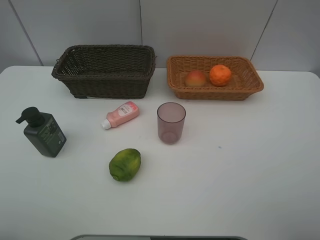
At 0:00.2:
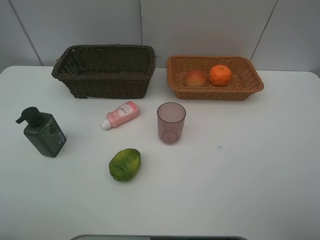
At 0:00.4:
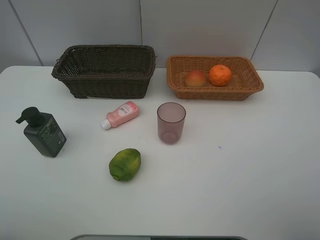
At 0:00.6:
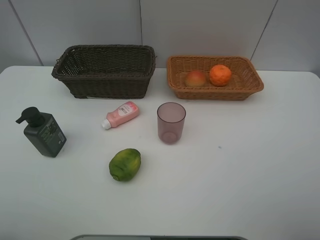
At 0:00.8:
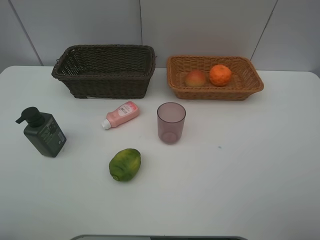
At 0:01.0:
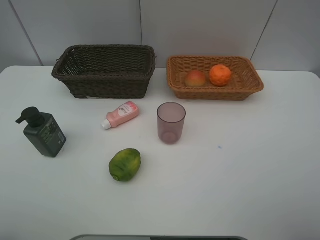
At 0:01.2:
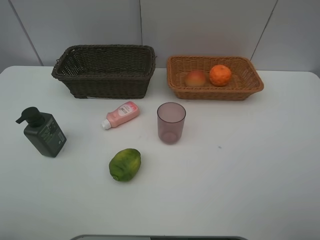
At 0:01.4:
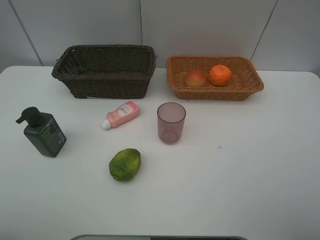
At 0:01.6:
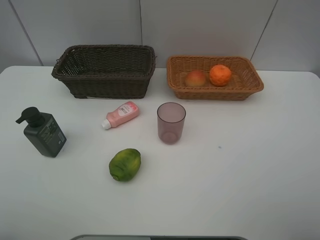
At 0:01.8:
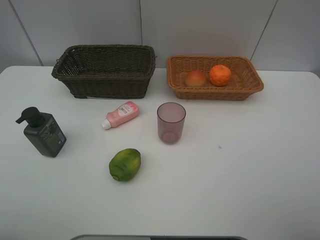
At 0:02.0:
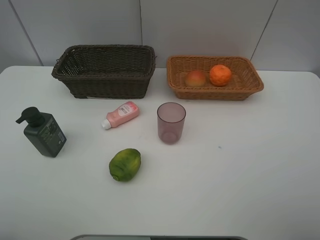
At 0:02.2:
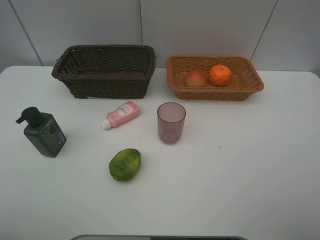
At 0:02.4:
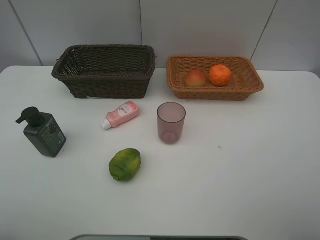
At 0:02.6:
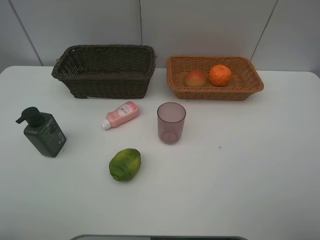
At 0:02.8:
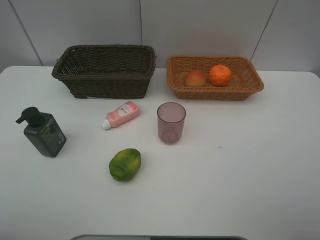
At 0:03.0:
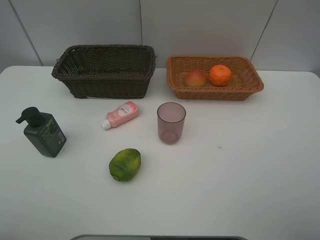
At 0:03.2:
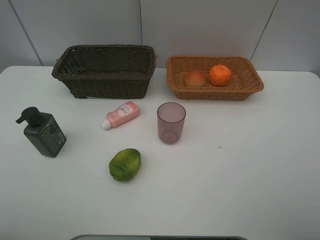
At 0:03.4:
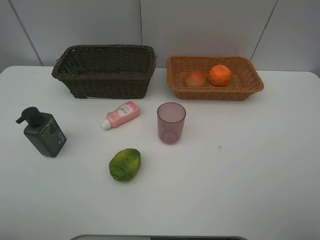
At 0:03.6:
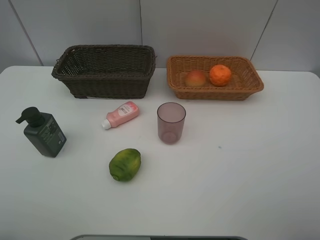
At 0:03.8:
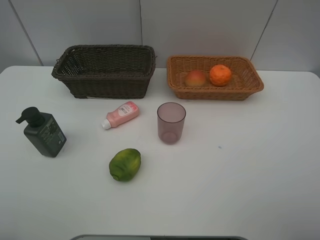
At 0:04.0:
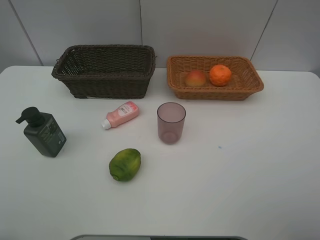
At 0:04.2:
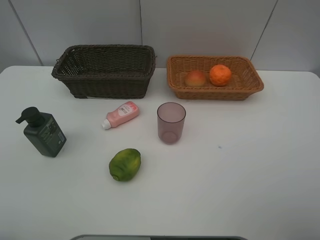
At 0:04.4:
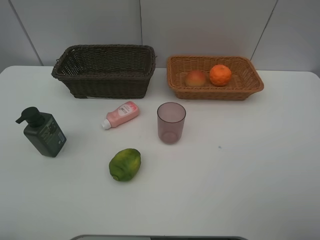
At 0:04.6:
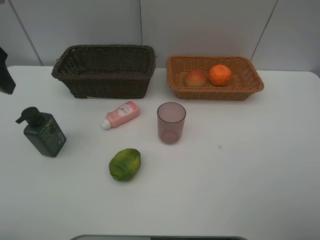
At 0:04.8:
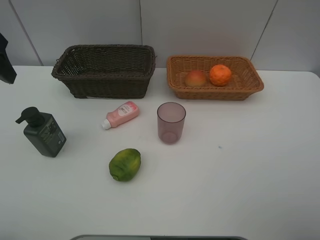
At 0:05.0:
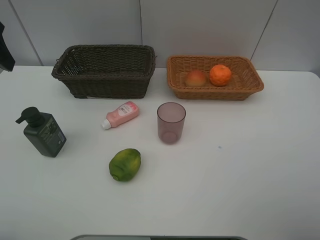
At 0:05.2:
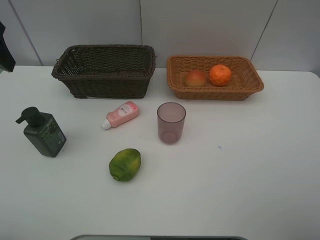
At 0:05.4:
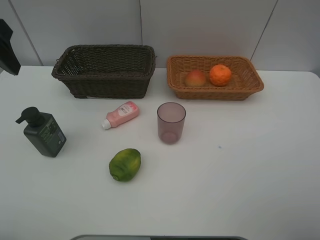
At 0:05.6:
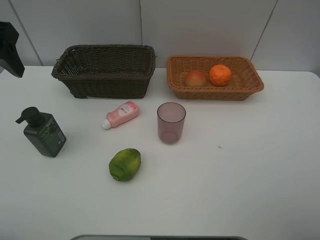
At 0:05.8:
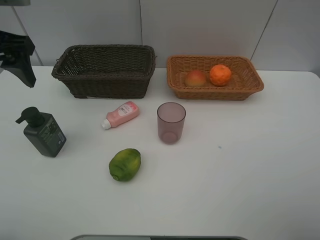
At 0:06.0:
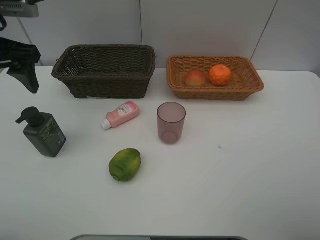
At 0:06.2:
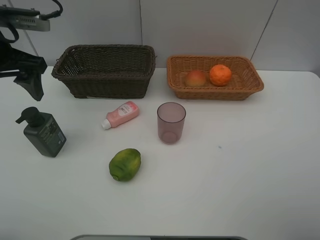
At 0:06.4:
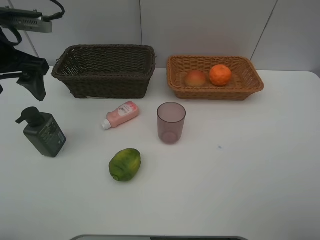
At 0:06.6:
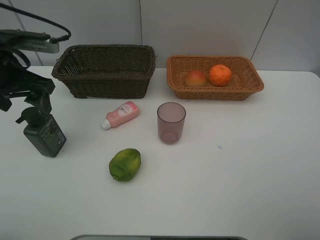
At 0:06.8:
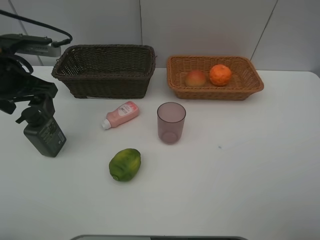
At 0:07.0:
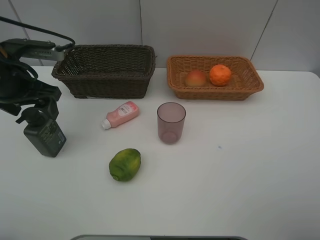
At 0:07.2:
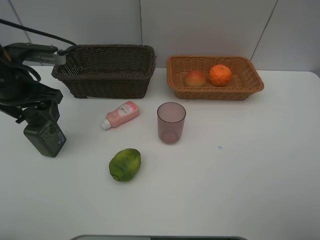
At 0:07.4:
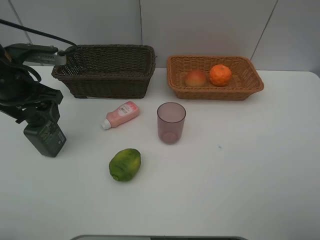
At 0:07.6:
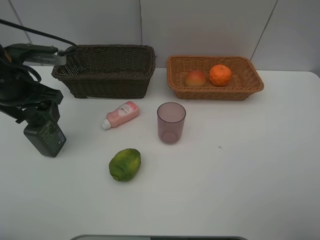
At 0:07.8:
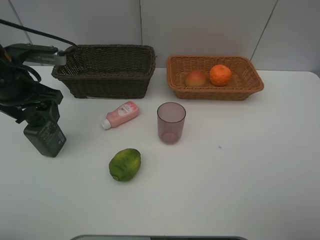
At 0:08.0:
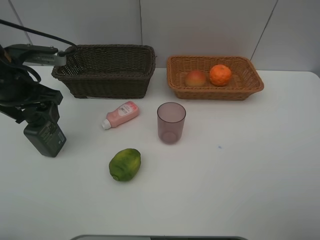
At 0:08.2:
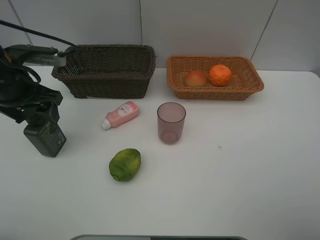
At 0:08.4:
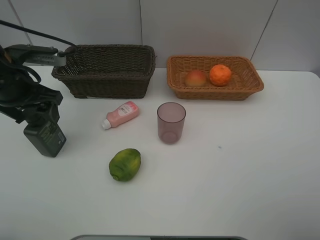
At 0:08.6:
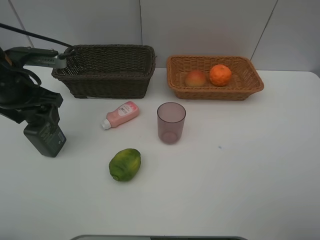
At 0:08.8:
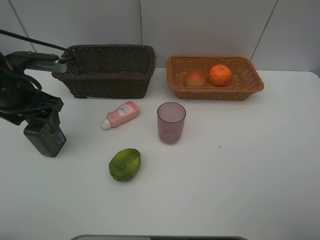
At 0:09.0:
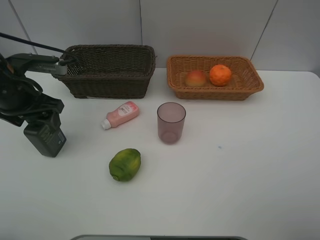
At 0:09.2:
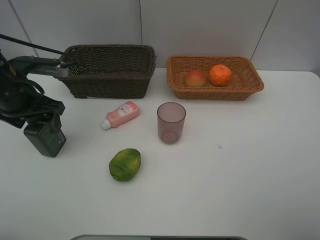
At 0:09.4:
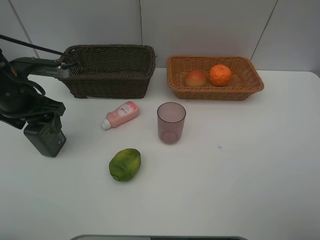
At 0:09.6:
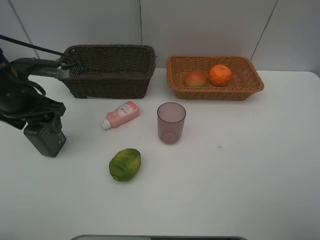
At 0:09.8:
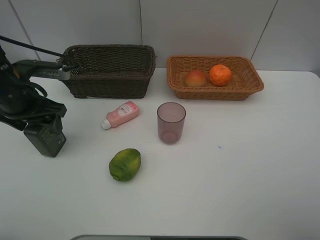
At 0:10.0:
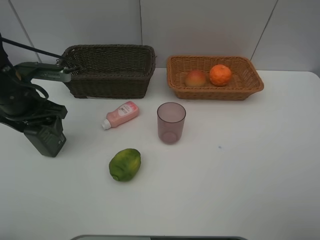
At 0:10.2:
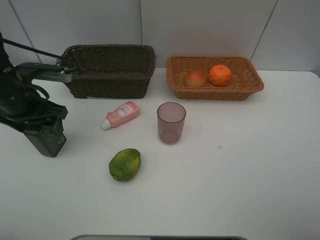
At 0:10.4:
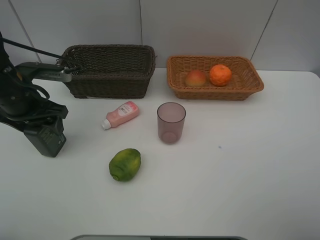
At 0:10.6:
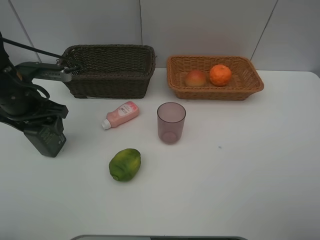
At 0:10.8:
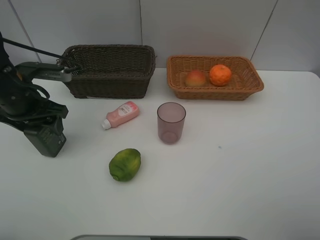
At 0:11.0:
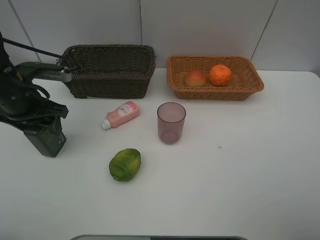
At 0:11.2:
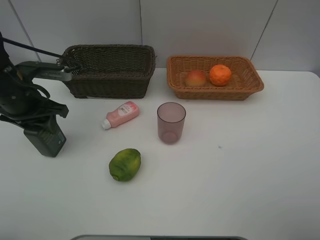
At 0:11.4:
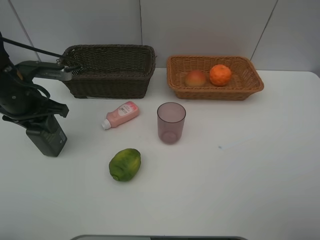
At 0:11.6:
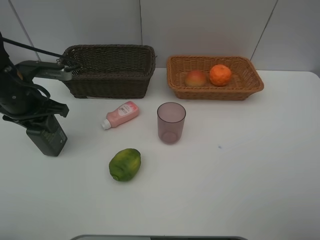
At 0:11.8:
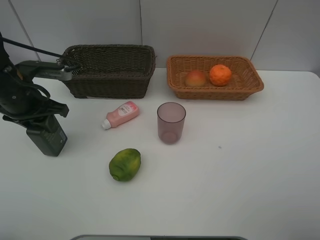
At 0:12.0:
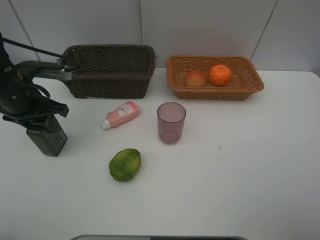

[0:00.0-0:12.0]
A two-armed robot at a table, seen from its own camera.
Task of the whole recording: place multiple objects separately in different baskets.
0:04.4 to 0:06.0: The left gripper heads forward, covering approximately 10 cm.
0:06.0 to 0:07.6: The left gripper moves downward, about 10 cm.
0:07.6 to 0:10.4: The grippers move only a little.
0:10.4 to 0:12.0: The left gripper closes up.

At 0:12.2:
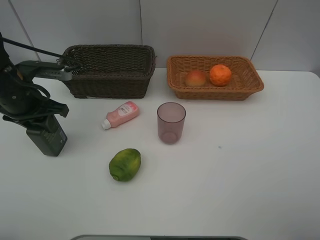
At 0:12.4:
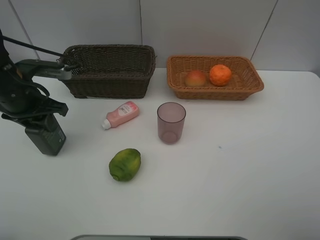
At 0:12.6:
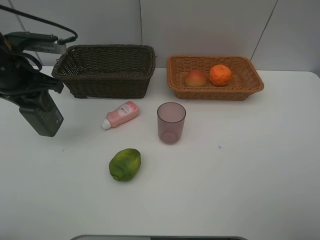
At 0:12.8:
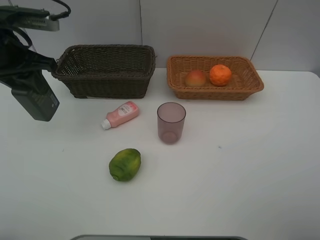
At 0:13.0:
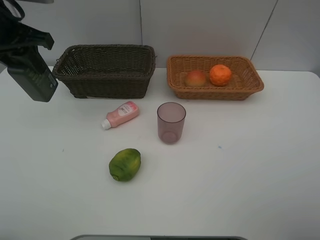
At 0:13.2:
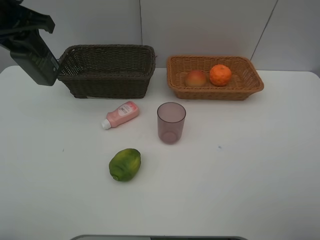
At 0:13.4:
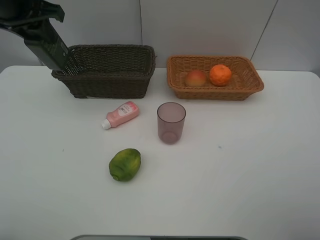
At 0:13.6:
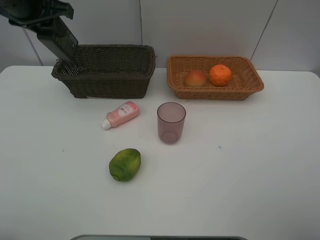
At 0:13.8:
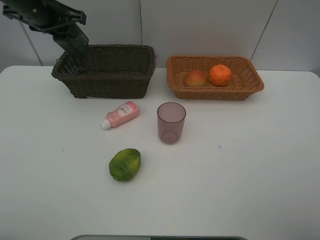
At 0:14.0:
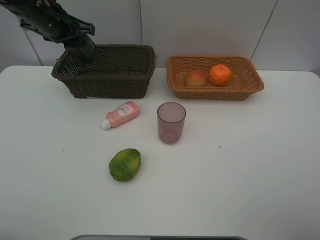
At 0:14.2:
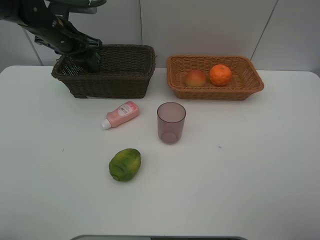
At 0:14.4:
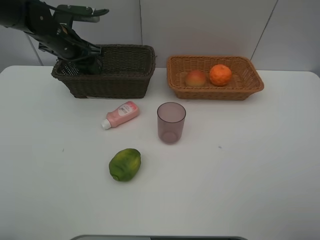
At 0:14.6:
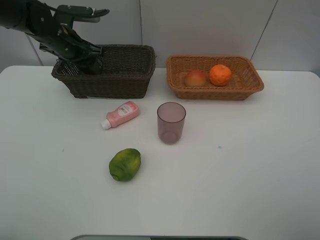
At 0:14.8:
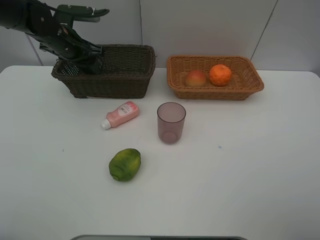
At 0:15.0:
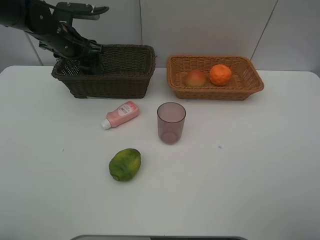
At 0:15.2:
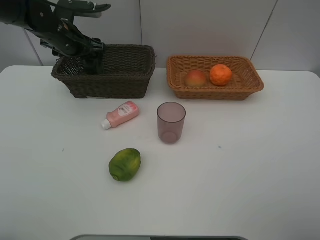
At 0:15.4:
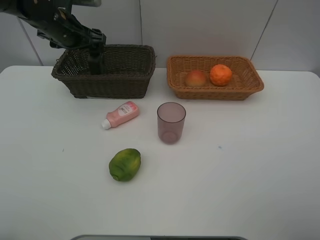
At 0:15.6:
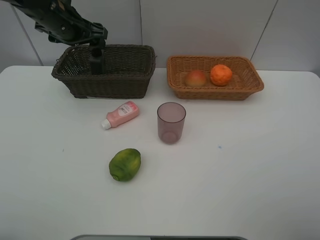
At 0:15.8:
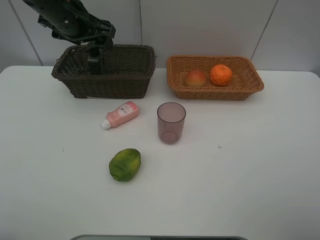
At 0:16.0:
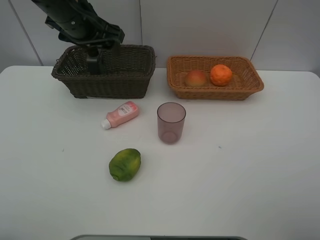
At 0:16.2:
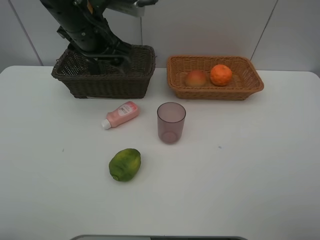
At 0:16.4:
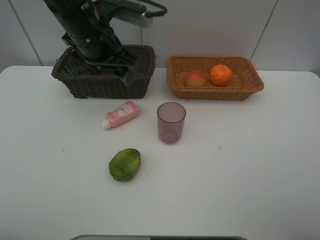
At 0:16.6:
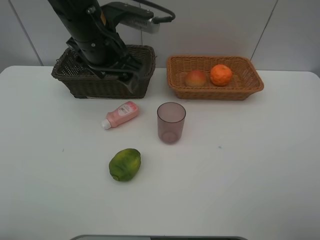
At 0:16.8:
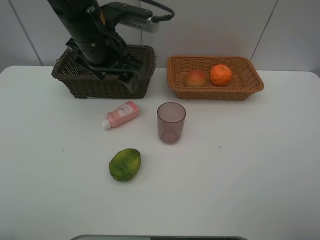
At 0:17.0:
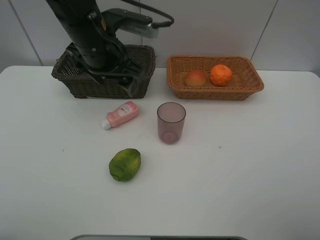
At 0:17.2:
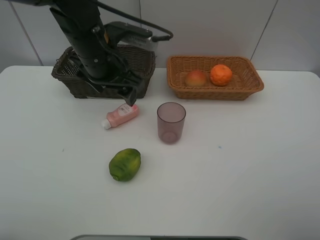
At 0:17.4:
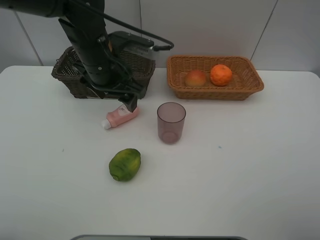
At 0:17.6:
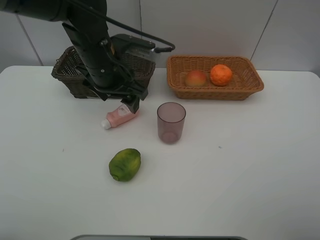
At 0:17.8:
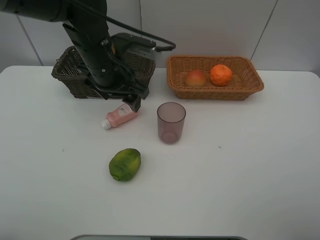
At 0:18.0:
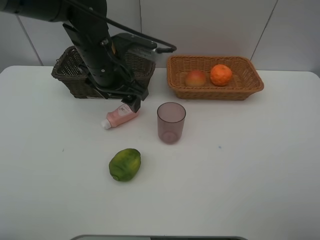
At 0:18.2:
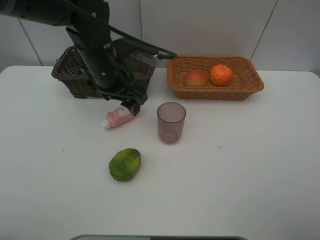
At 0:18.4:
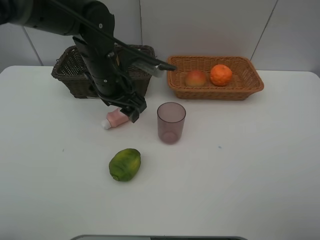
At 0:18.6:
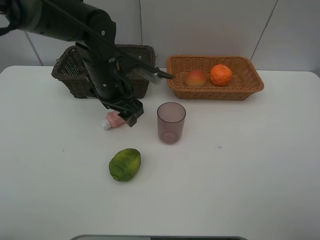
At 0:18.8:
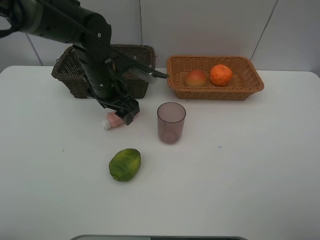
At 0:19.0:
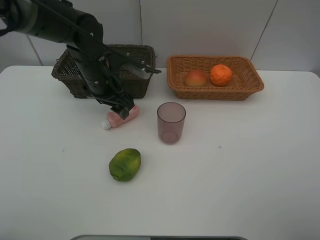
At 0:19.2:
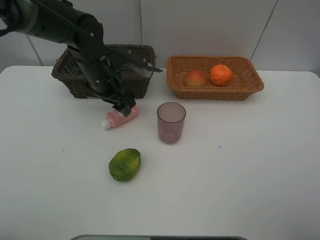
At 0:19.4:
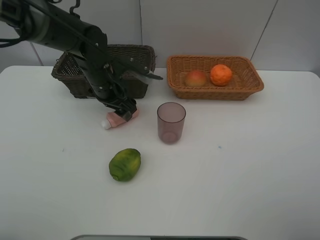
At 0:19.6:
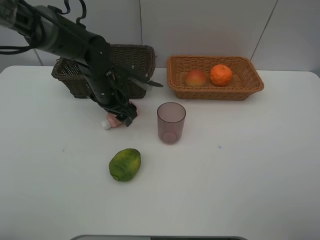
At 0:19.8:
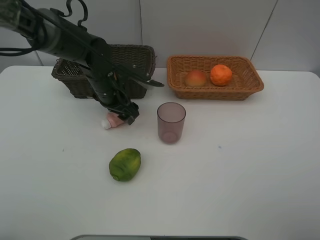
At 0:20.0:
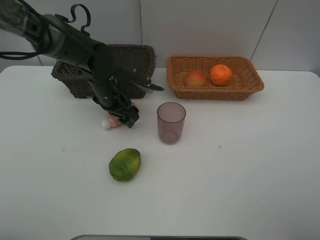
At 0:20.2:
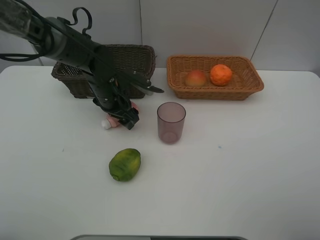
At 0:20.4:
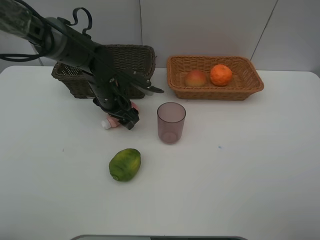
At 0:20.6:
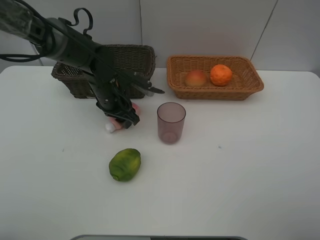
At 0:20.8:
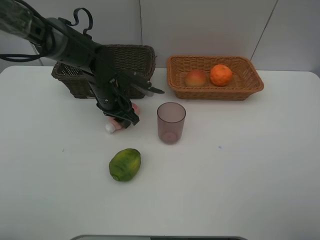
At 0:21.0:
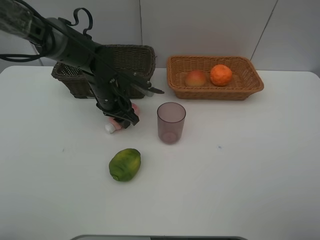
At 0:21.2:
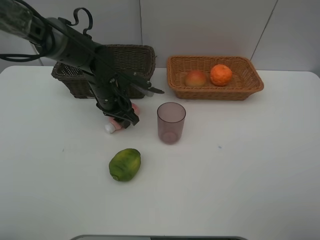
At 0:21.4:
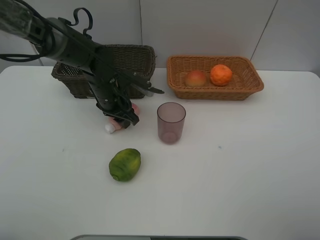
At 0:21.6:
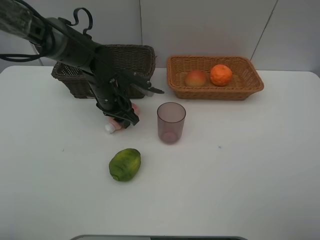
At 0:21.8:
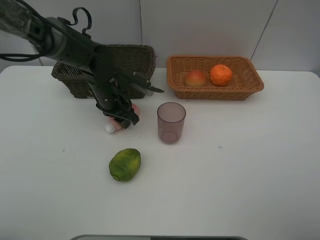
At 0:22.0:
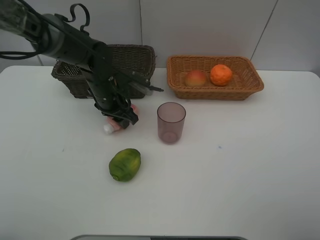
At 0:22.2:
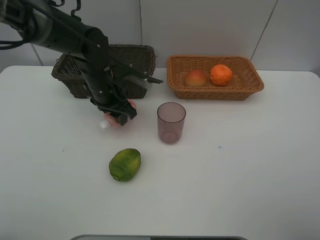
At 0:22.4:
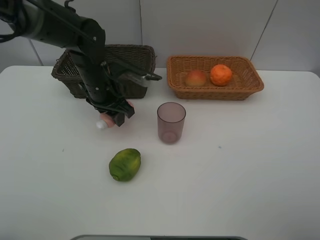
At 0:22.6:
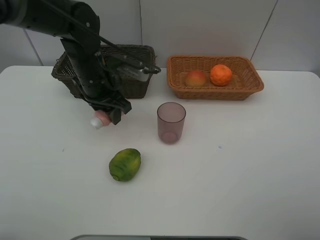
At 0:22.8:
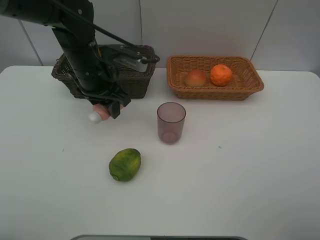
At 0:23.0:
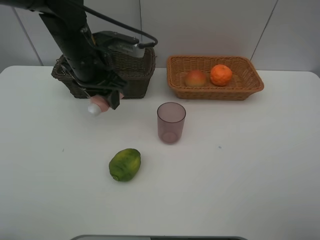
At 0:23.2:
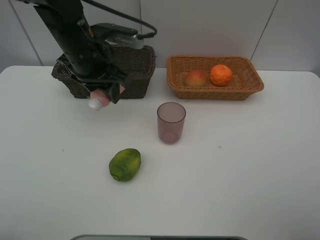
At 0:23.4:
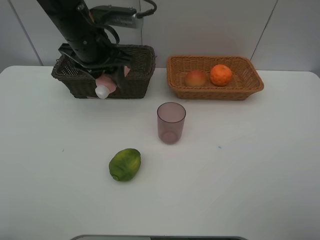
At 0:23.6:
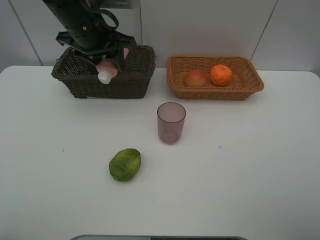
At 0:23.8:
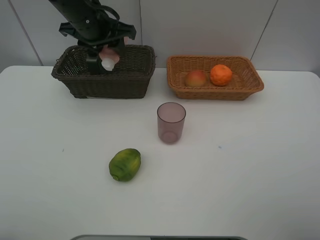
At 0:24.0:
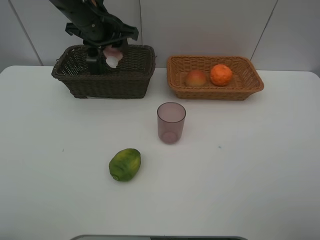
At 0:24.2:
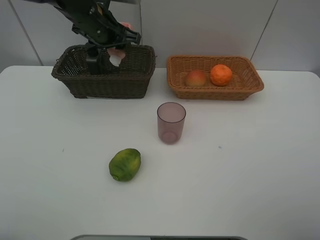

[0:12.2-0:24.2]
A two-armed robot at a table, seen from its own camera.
Task of the whole recording: place multiple objects separately in different baskets.
0:12.2 to 0:13.8: The left gripper shifts about 15 cm forward and upward.
0:13.8 to 0:15.2: The left gripper goes about 5 cm downward, and opens up.
0:15.2 to 0:16.6: The left gripper goes some 20 cm backward, to the right and upward.
0:16.6 to 0:18.2: The left gripper is displaced downward by about 5 cm.
0:18.2 to 0:19.8: The left gripper shifts roughly 10 cm downward.
0:19.8 to 0:21.2: The left gripper closes its fingers.
0:21.2 to 0:22.6: The left gripper moves upward, about 10 cm.
0:22.6 to 0:24.2: The left gripper moves forward and upward, approximately 10 cm.
